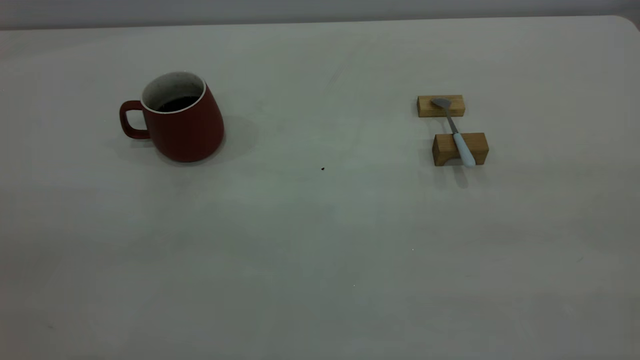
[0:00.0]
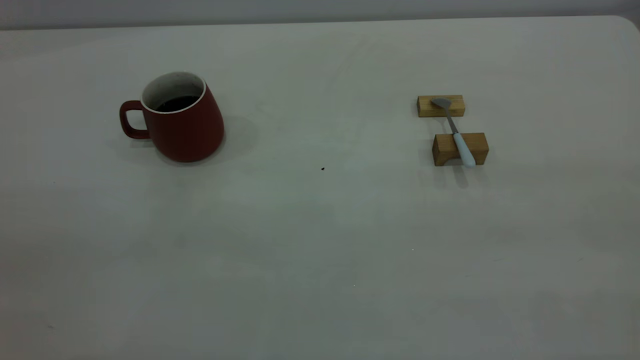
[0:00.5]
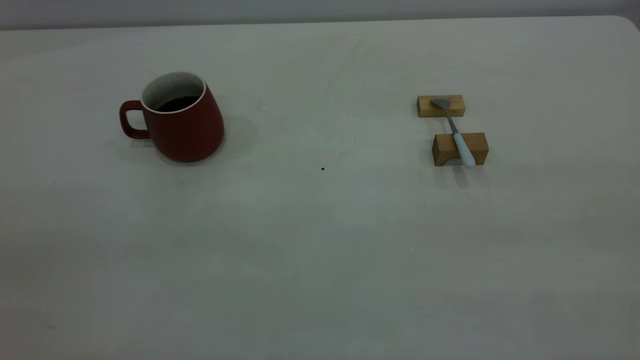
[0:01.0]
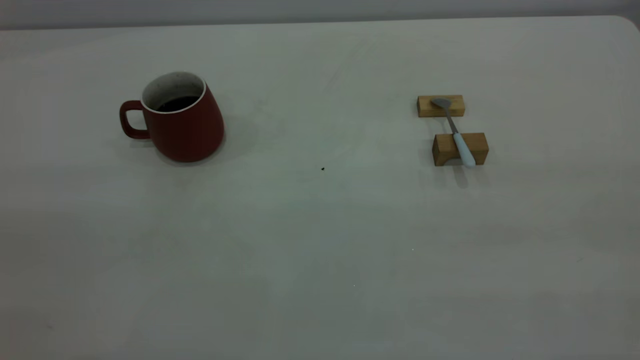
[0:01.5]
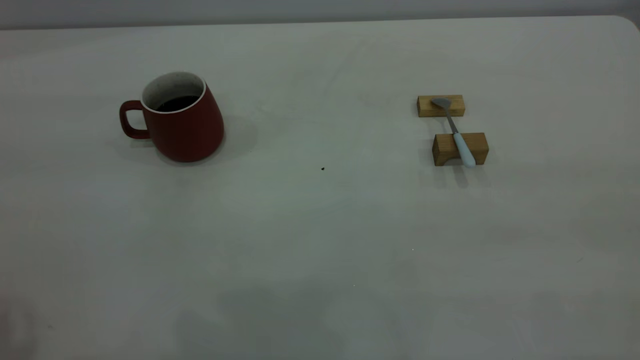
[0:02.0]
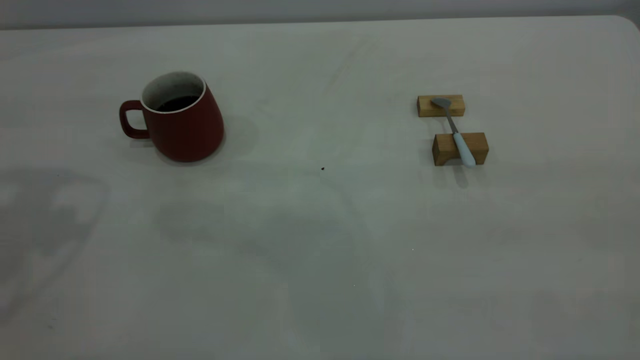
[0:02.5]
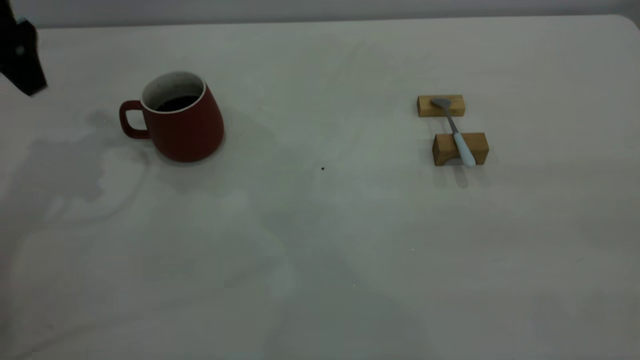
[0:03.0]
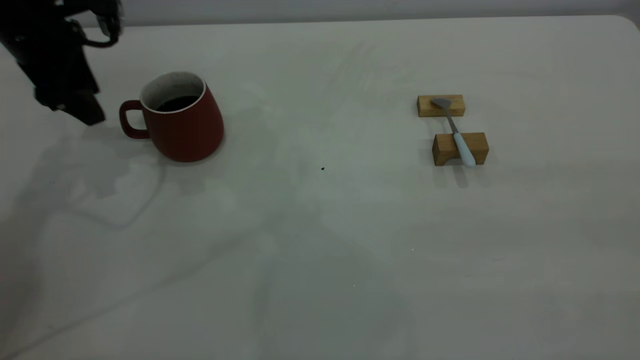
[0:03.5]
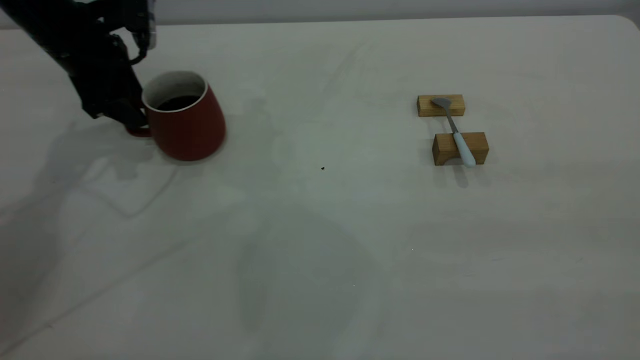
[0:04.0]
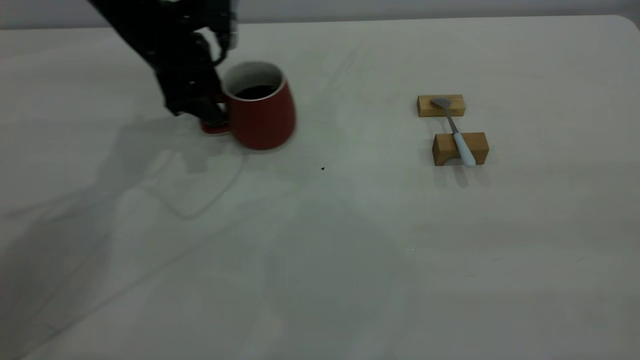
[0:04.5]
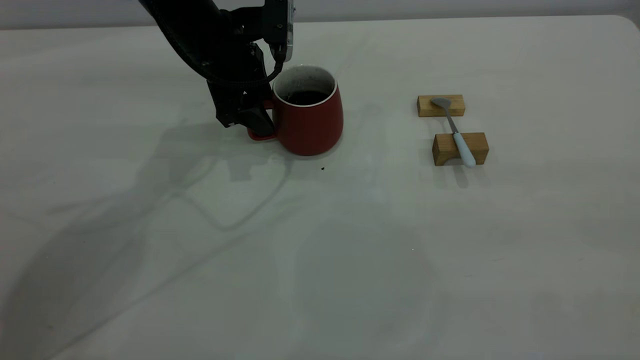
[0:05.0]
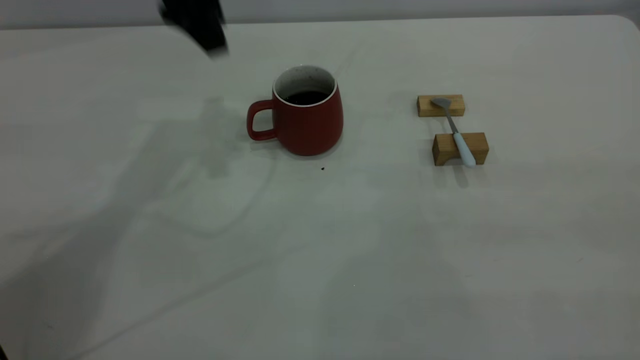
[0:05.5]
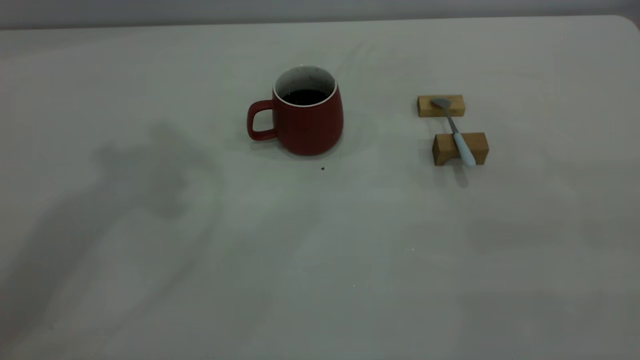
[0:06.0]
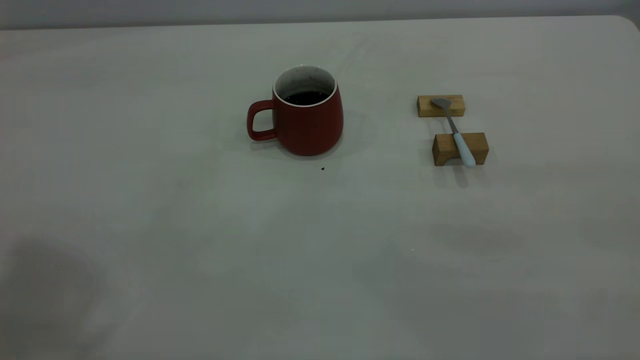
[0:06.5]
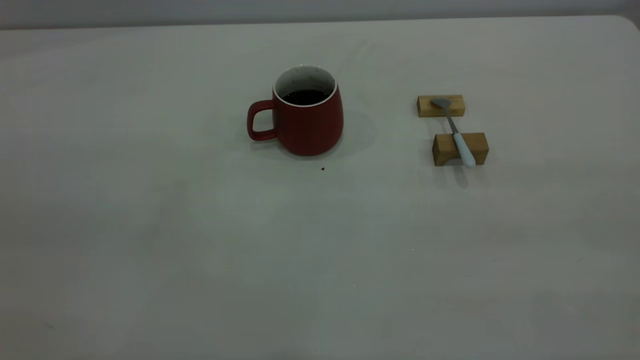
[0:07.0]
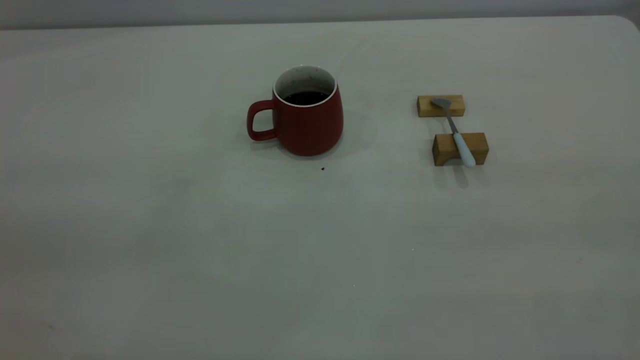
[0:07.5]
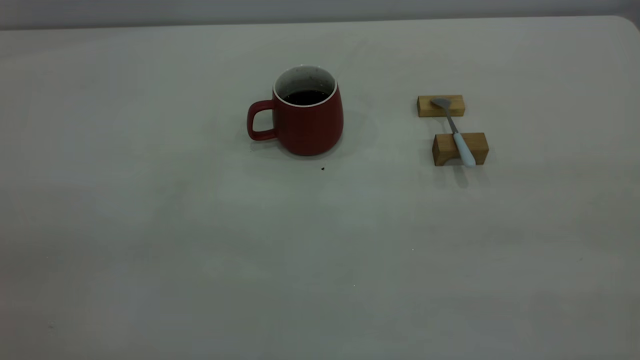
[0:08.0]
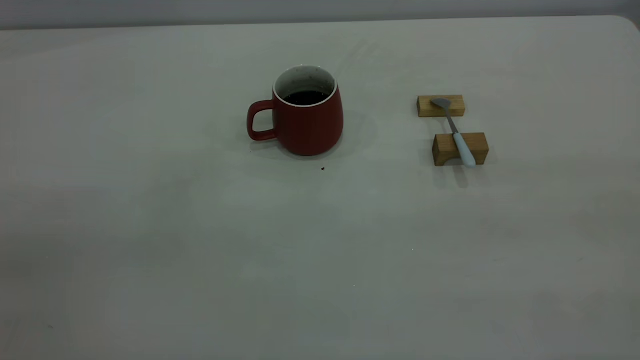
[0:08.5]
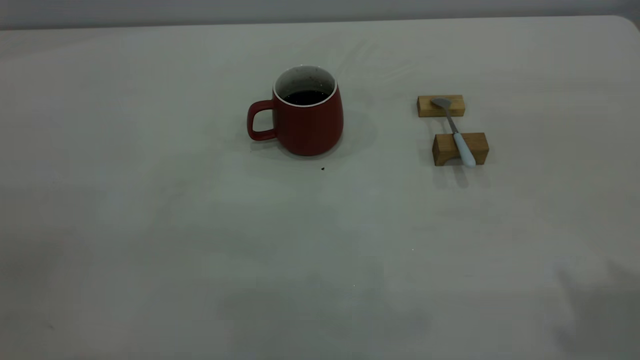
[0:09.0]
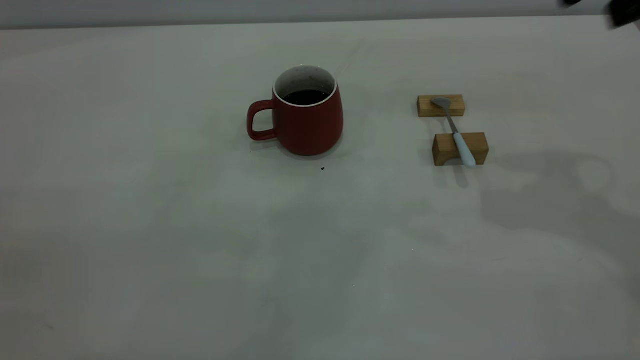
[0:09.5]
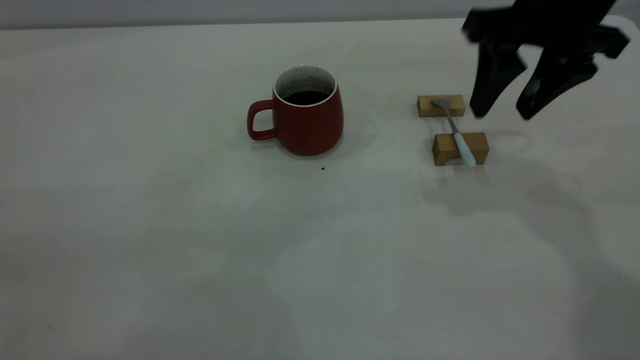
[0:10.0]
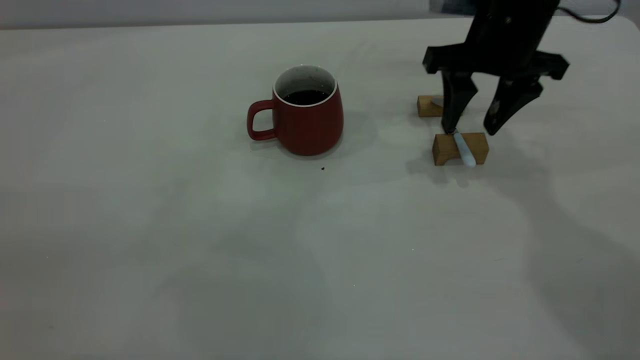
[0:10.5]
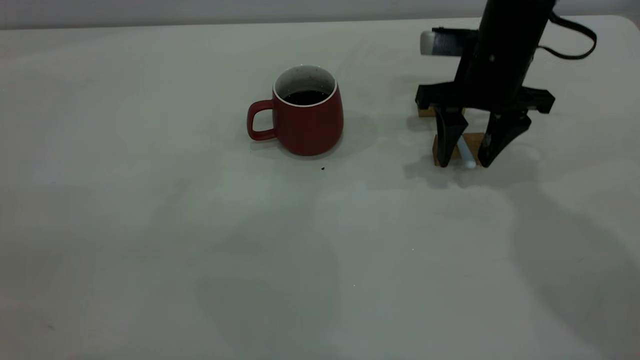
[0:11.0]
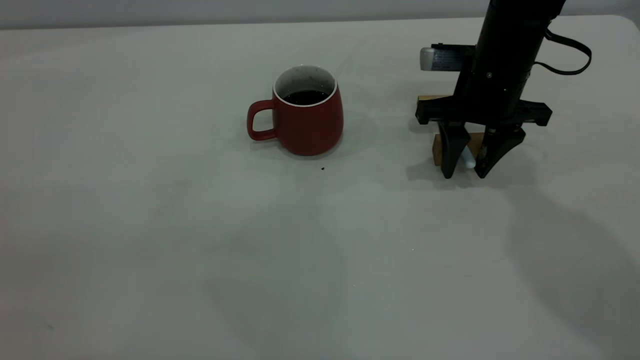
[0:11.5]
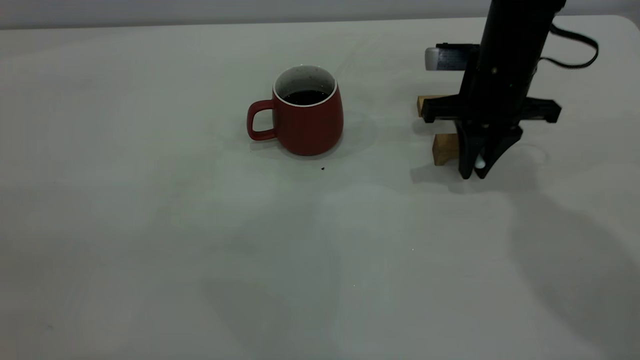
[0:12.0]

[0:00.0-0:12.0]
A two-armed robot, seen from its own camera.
Step, 0:00.0 to 0:05.0: Move the cup with coffee to the center of view.
0:02.0 to 0:04.0: The left gripper moves forward and downward, roughly 40 cm.
0:04.0 to 0:06.0: The left gripper is displaced upward by roughly 35 cm.
0:08.0 to 0:10.0: The right gripper moves forward and downward, some 40 cm, and opens its fingers.
0:10.0 to 0:12.0: The right gripper travels downward by roughly 10 cm, and closes up.

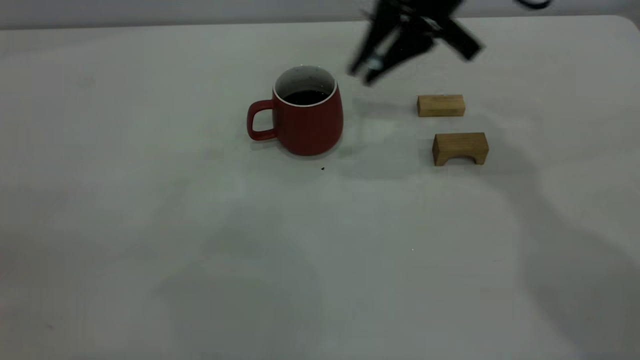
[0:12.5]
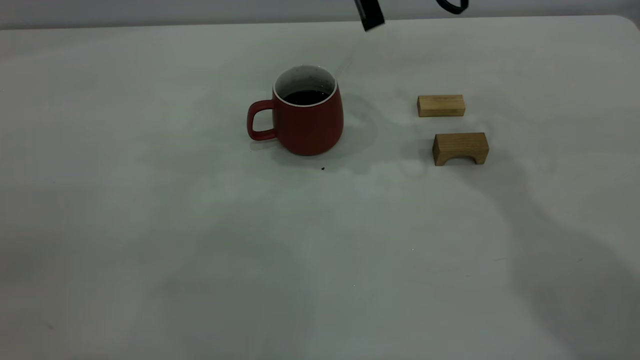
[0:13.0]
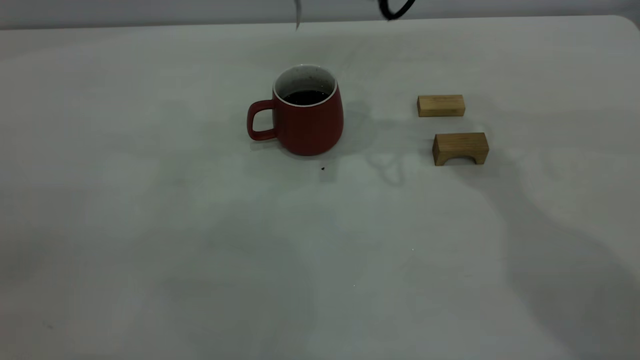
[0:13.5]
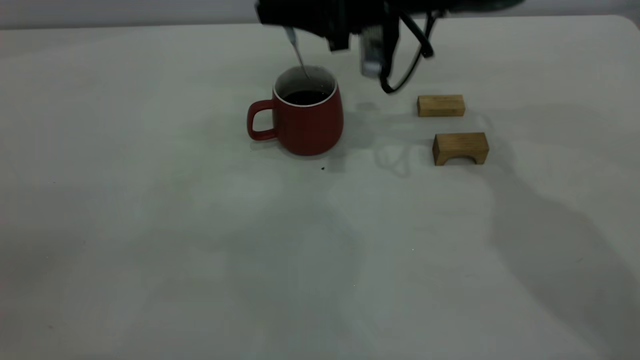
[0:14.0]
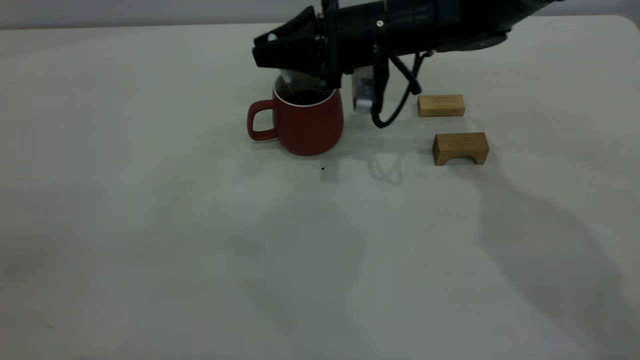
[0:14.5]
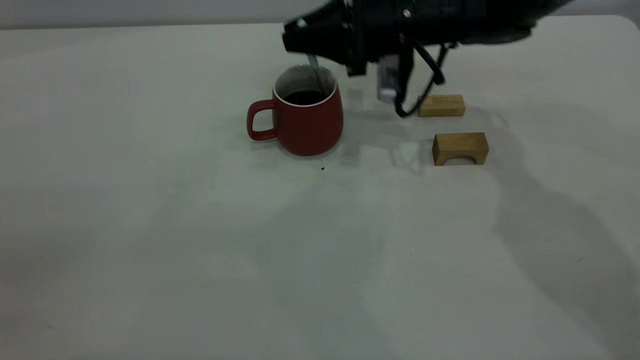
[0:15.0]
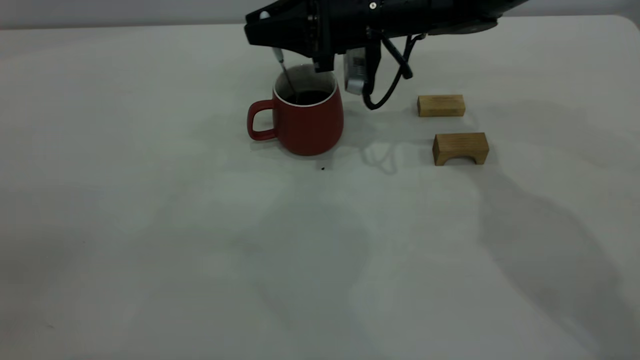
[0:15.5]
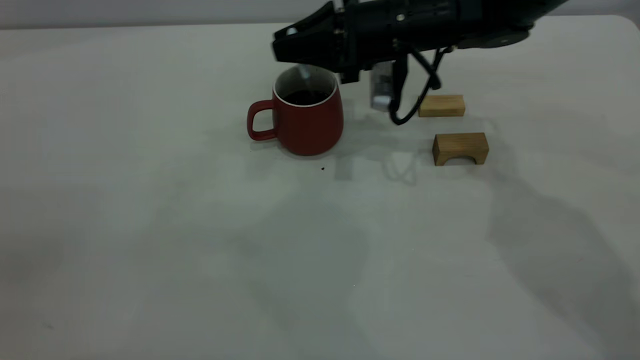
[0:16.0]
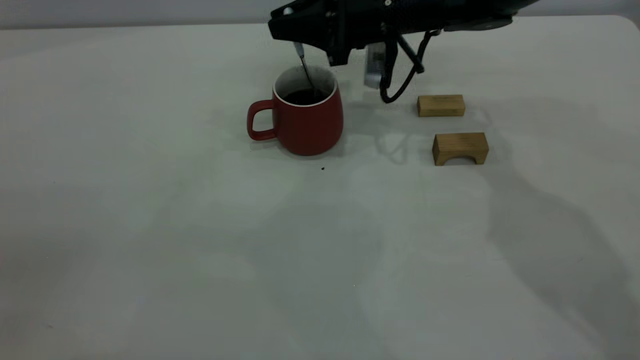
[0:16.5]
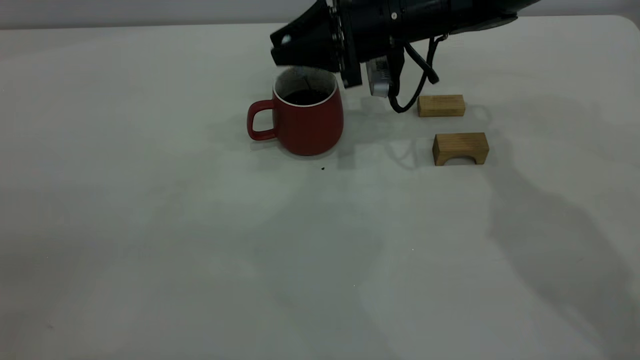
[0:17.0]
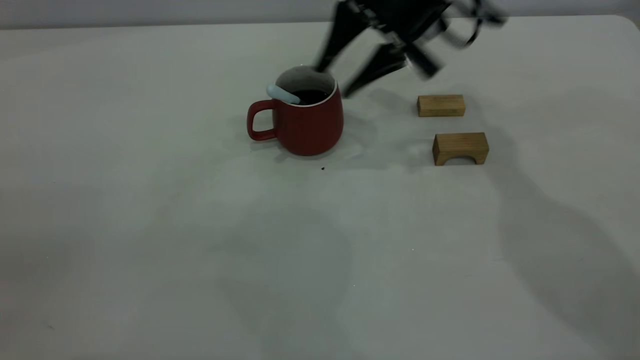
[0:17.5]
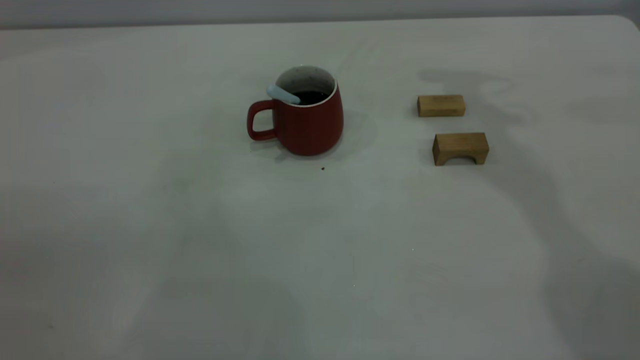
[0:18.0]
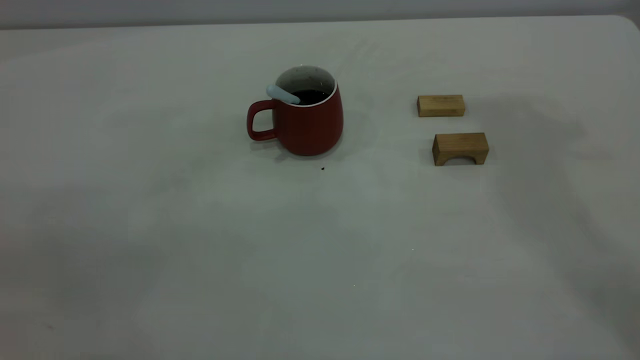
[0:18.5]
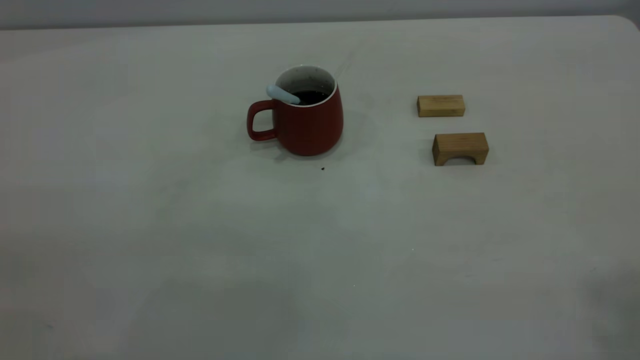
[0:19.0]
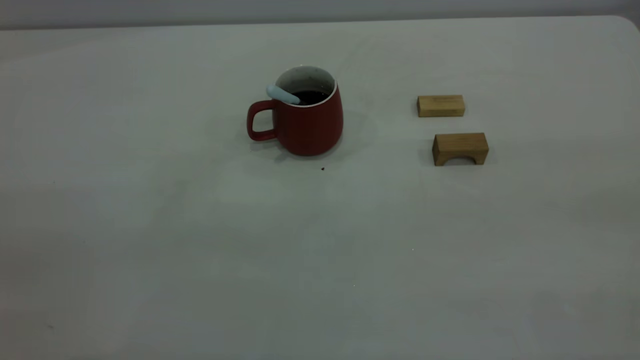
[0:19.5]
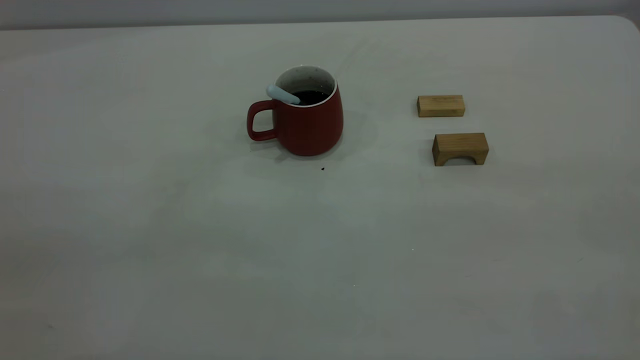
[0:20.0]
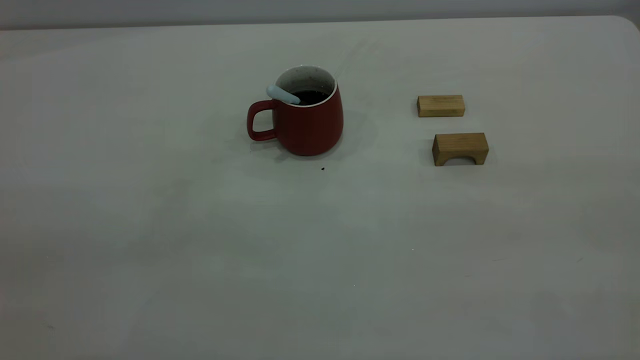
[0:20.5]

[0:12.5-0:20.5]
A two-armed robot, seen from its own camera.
Step, 0:12.5 to 0:17.0: Stir the coffee in the cup.
0:12.5 to 0:14.5: The right gripper moves downward, some 10 cm.
0:14.5 to 0:16.5: The grippers move only a little.
0:16.5 to 0:18.5: The right gripper goes approximately 40 cm upward, and opens its fingers.
